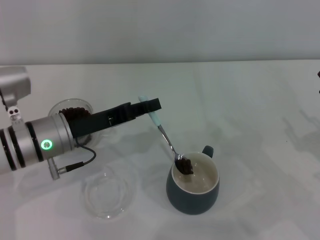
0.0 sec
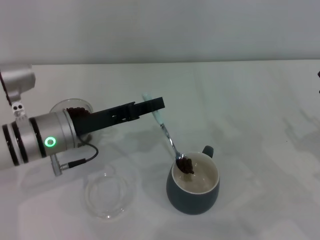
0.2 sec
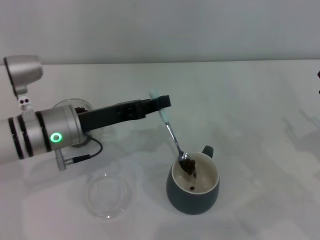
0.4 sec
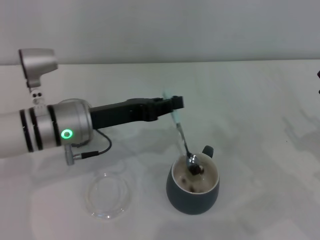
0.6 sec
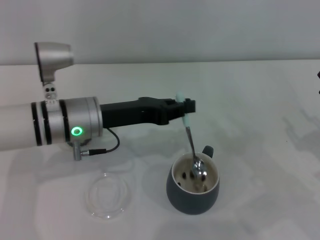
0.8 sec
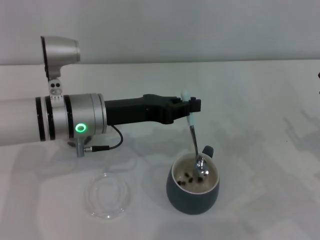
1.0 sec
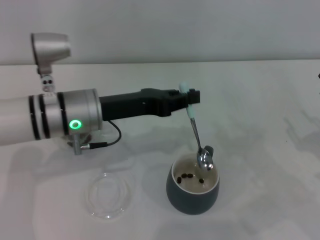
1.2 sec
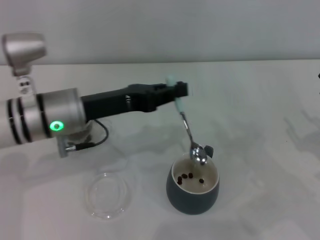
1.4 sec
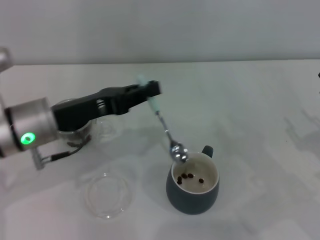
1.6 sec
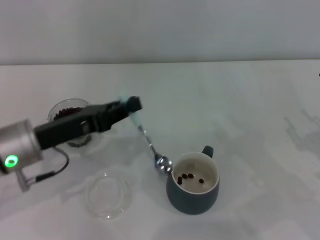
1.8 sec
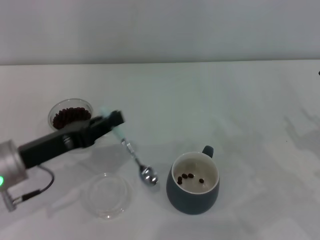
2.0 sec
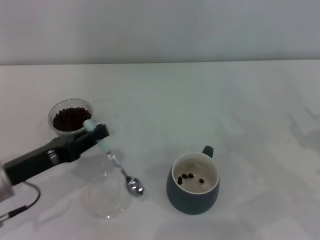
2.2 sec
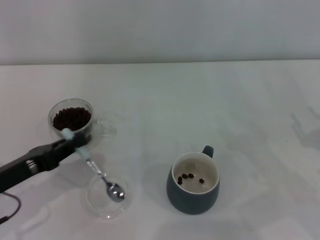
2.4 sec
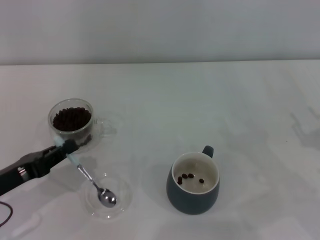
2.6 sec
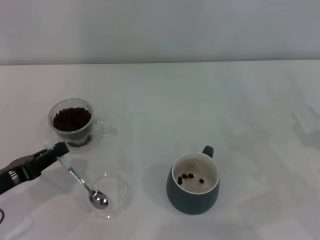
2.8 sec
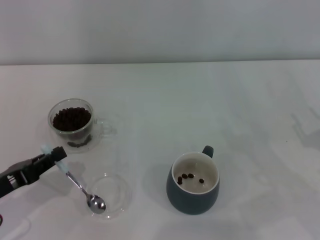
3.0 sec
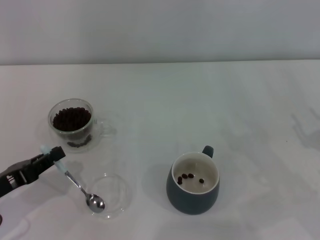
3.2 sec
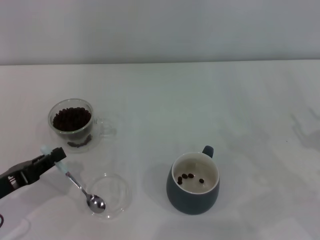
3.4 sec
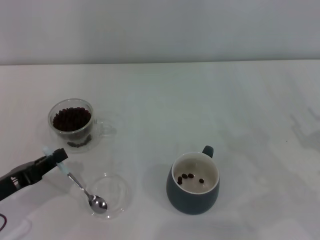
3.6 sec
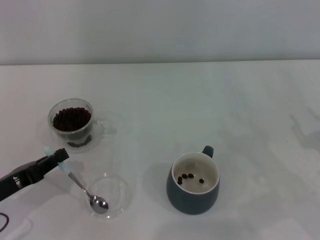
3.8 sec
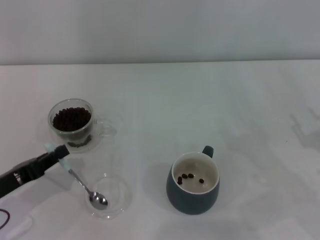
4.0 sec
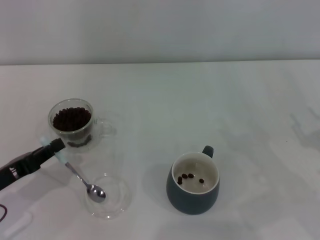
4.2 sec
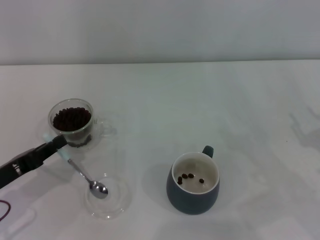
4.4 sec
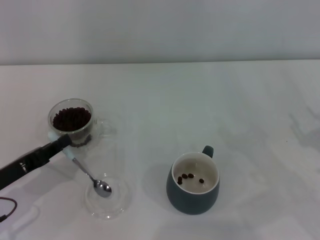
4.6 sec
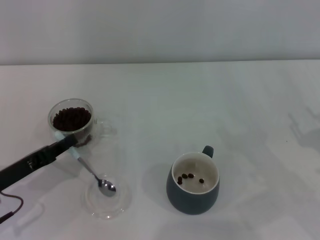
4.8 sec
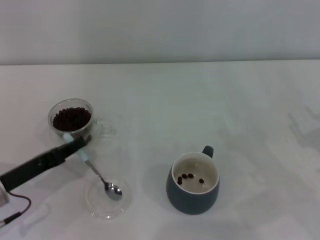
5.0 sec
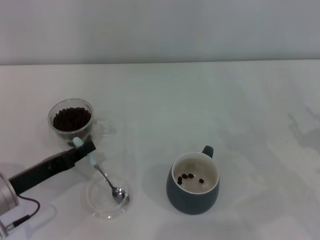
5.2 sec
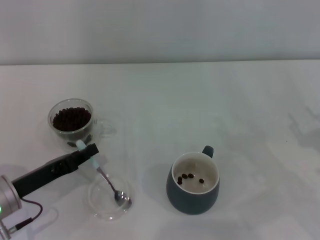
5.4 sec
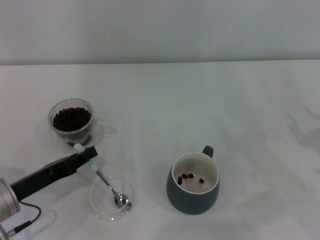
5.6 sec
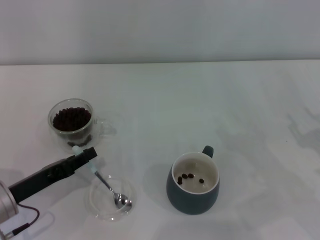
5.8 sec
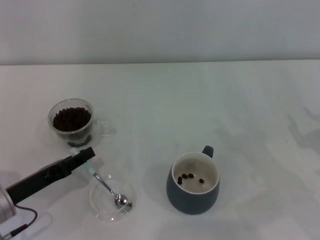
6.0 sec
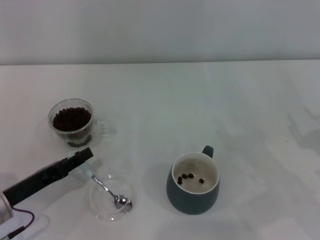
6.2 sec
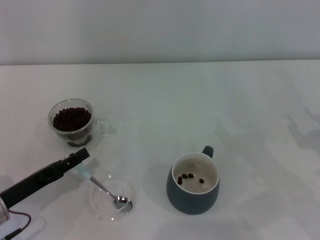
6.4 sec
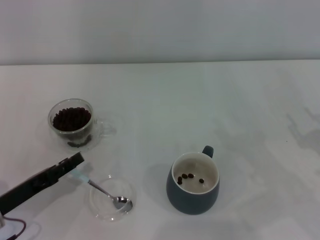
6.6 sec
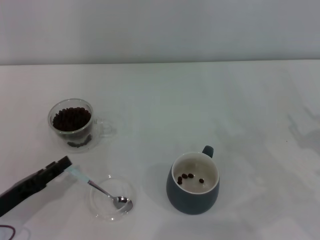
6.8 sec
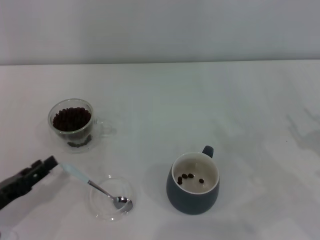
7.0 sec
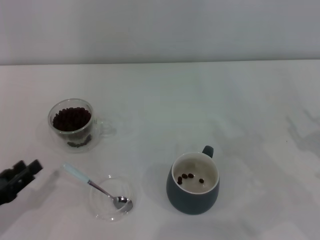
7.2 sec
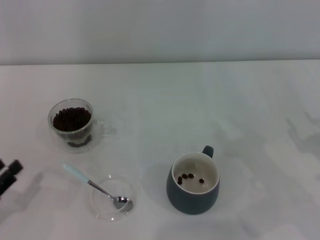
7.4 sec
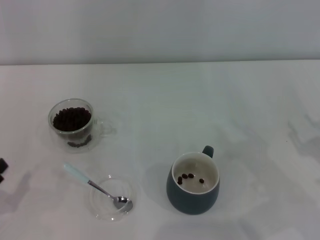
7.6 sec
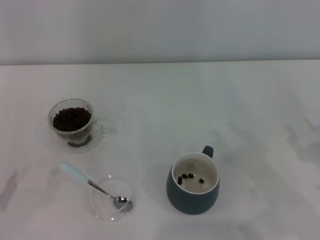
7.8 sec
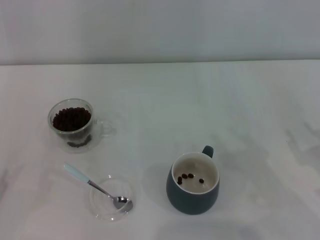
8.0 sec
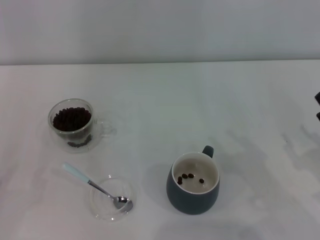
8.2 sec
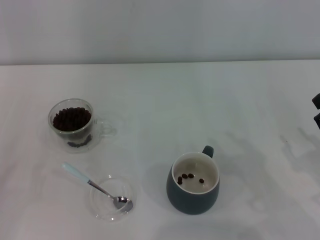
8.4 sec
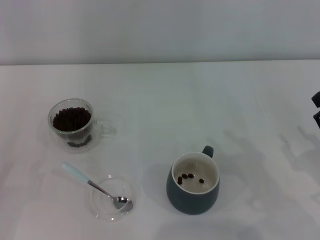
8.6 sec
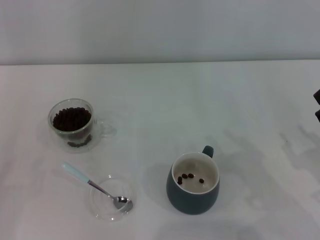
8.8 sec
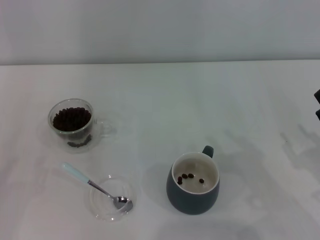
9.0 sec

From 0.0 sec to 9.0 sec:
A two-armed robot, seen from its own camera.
Task of the whole recording: Use a blue spoon to take out the coffee beans from the glass and pour them into the gray cup.
From 1.6 sec to 3.0 sec: The left gripper goes roughly 15 cm to the left, backward and downward.
From 3.0 sec to 6.0 sec: The grippers stay close to where they were, moving slightly.
From 6.0 sec to 7.6 sec: The left gripper goes about 10 cm to the left and backward, and opens.

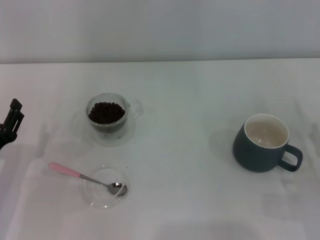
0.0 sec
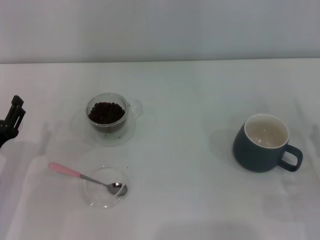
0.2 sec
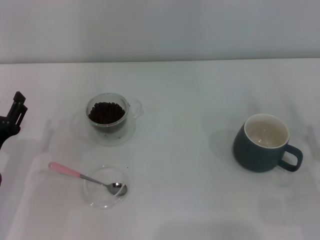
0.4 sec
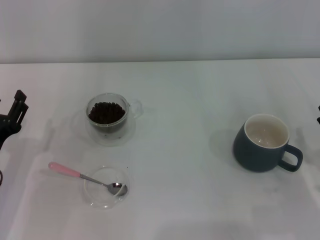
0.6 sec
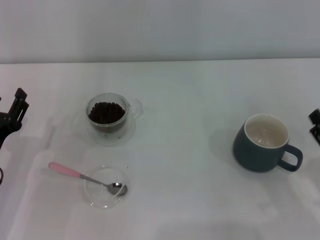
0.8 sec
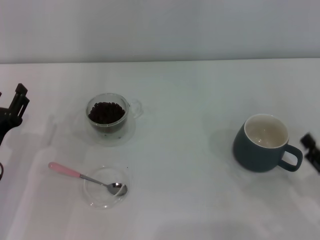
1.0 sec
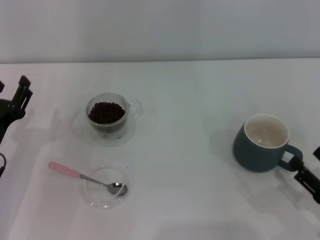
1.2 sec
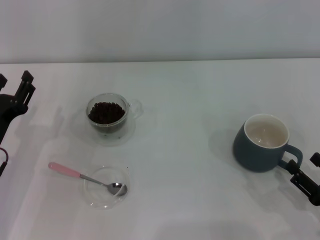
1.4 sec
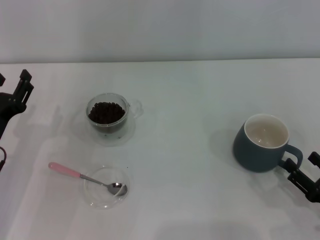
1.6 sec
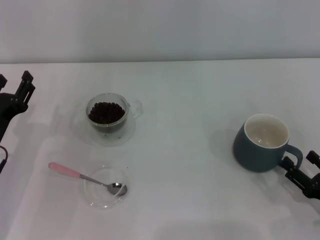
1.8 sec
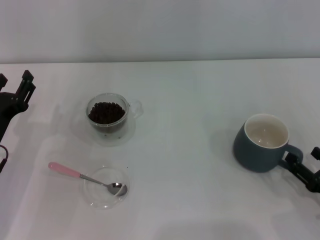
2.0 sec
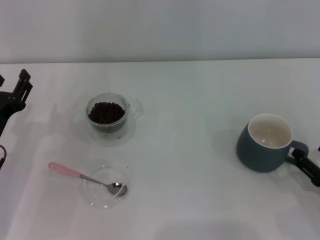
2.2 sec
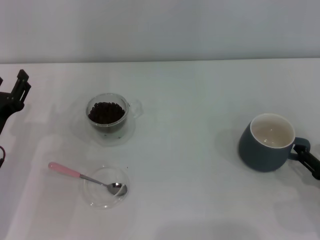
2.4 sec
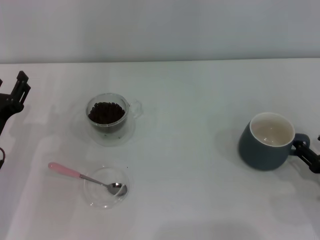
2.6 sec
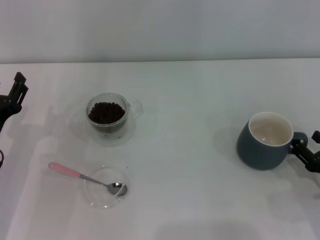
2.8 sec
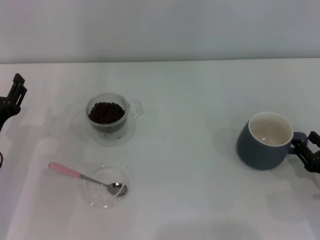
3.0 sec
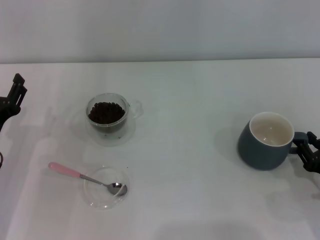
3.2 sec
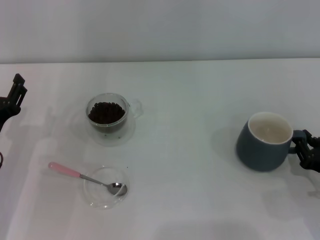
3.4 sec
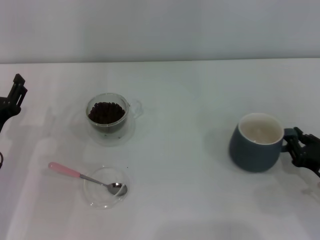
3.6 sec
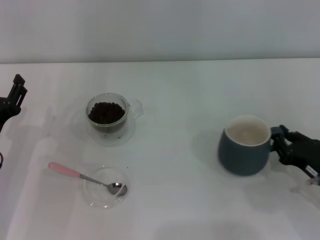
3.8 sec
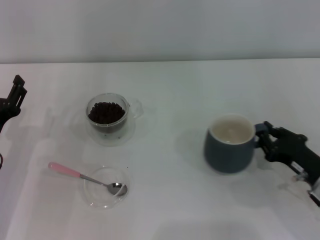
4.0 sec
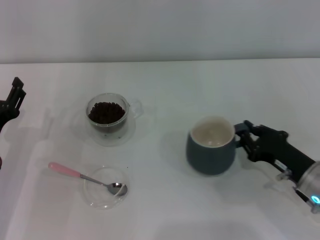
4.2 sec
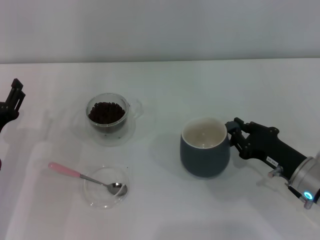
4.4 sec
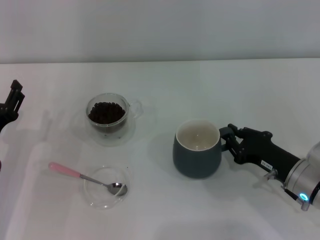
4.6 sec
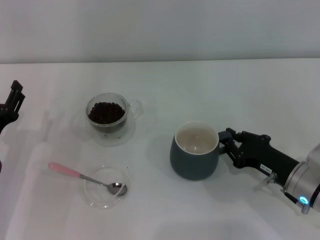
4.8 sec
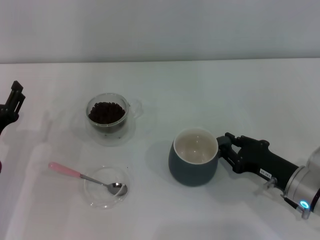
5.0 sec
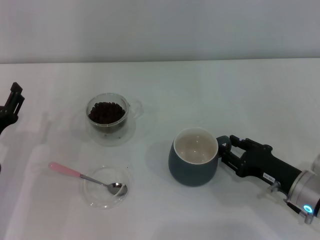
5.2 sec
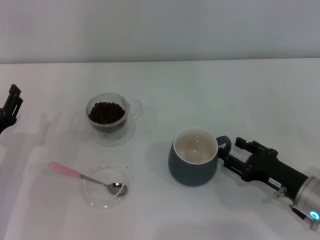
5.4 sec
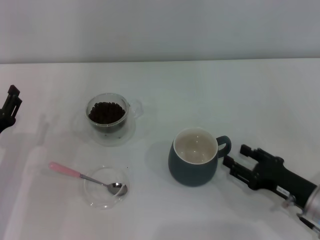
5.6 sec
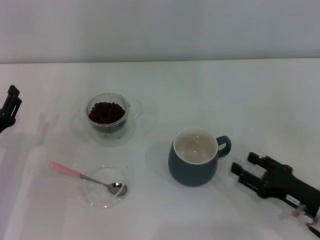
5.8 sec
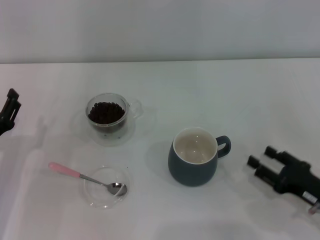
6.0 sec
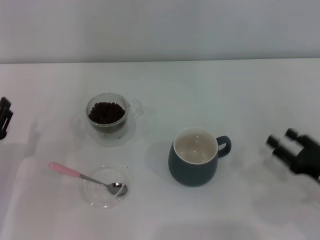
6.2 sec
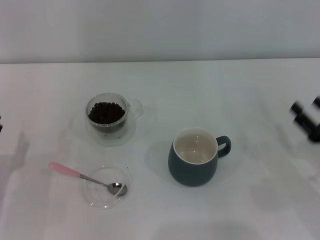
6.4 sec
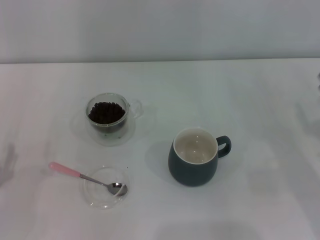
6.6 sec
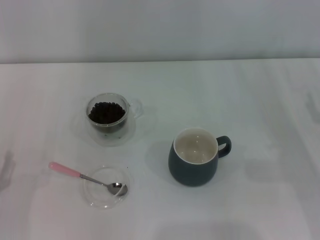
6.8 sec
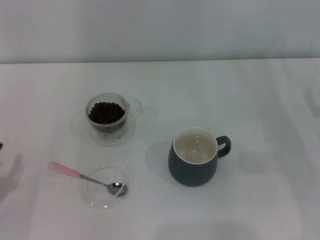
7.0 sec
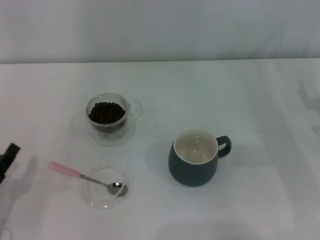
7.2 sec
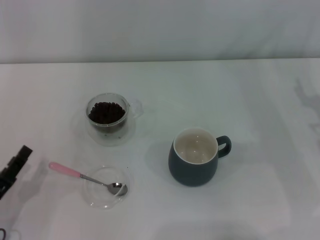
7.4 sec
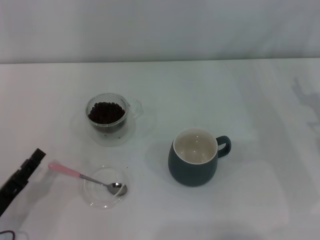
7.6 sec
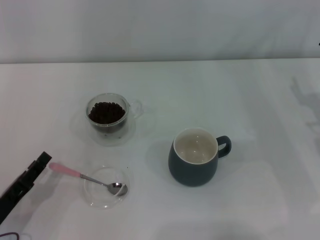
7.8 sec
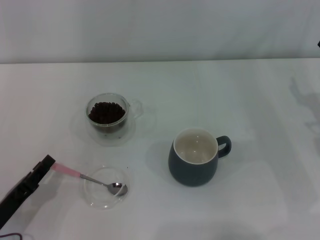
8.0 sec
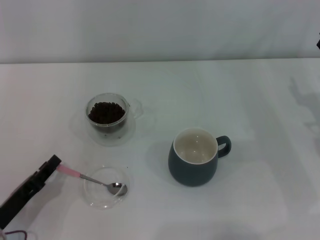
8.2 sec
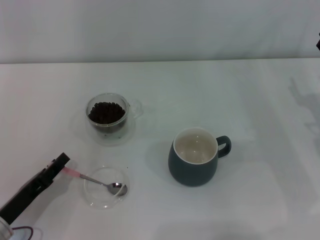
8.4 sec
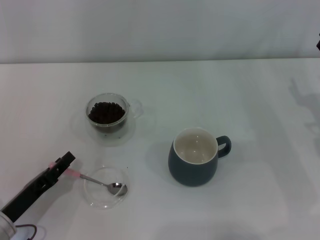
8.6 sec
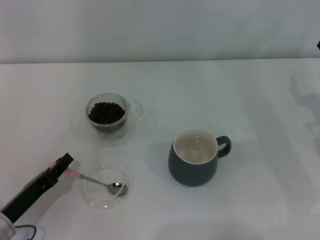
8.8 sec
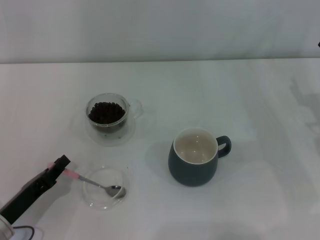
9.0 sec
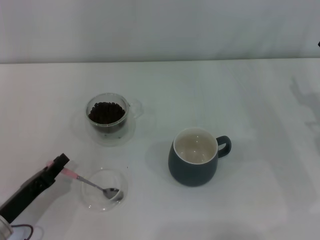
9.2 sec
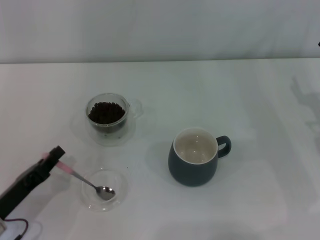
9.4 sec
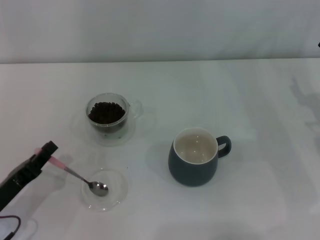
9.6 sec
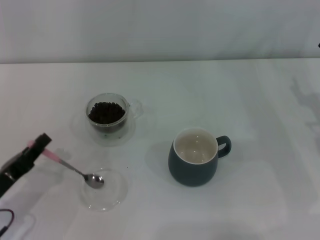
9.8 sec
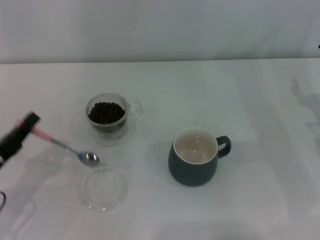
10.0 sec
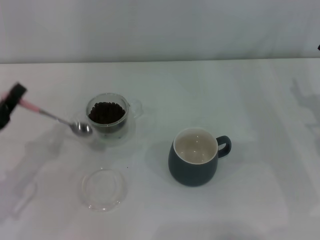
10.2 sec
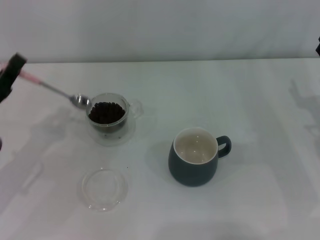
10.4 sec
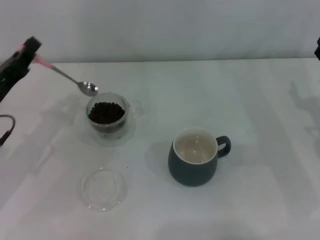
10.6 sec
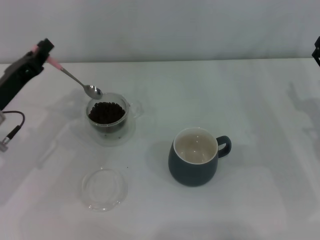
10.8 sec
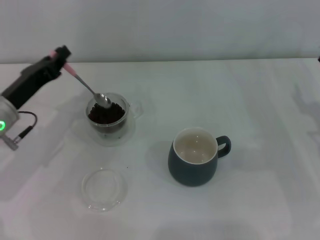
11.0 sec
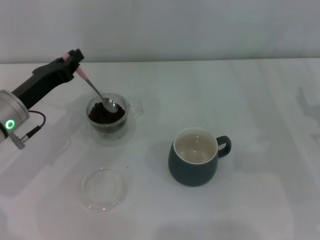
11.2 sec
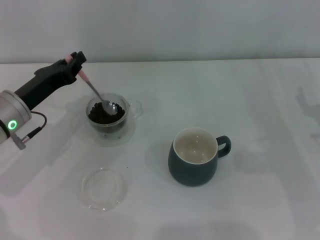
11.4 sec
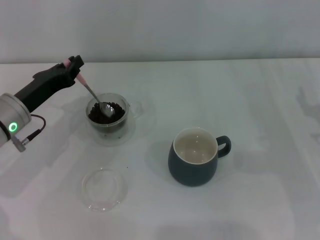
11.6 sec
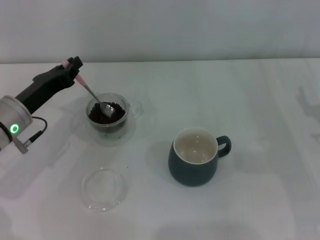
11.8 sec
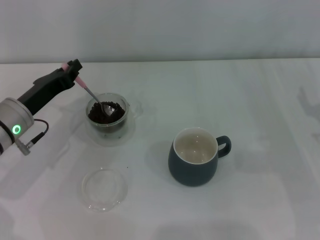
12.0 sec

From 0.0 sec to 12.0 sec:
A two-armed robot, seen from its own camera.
Task of the whole recording: Use a pink spoon to take out the coffee beans from the glass and pour them into the gray cup.
Step, from 0.0 sec to 5.6 sec: Move the cup to the center of view with the left gripper.
Step, from 5.8 sec to 9.8 sec: Pick up the spoon with the right gripper.
From 0.0 sec to 1.6 sec: The right gripper goes approximately 5 cm backward.
From 1.6 sec to 3.0 sec: The right gripper travels forward by some 5 cm.
From 3.0 sec to 4.4 sec: The right gripper travels to the left and forward by about 10 cm, and closes up.
From 4.4 sec to 6.0 sec: The right gripper heads backward, covering approximately 5 cm, and opens.
From 6.0 sec to 7.6 sec: The left gripper moves backward, some 10 cm, while the right gripper heads forward and upward, covering approximately 15 cm.
From 7.6 sec to 9.0 sec: The left gripper closes up.
From 9.0 sec to 10.4 sec: The left gripper travels upward and forward by some 10 cm, and closes up.
From 10.4 sec to 12.0 sec: The left gripper shifts some 10 cm forward and to the right.

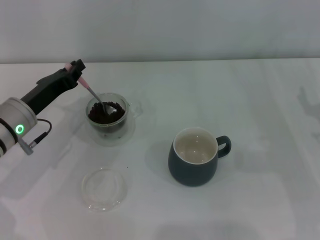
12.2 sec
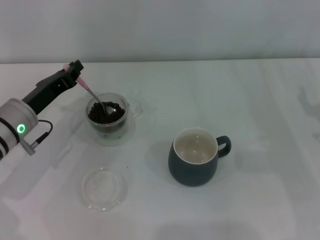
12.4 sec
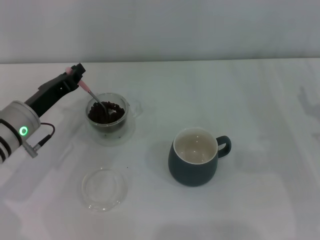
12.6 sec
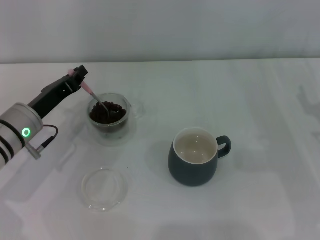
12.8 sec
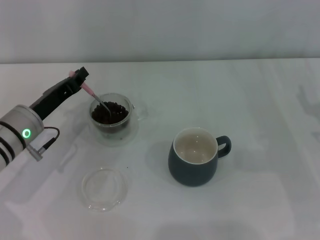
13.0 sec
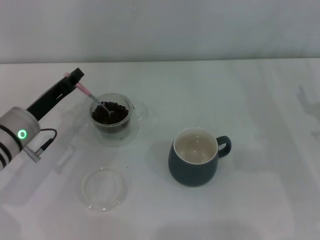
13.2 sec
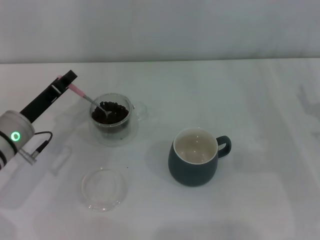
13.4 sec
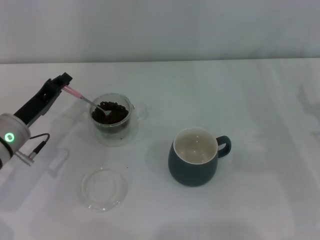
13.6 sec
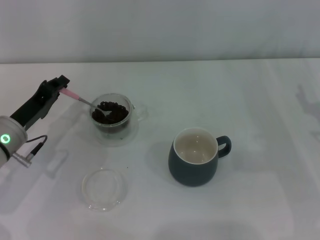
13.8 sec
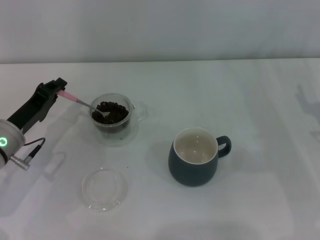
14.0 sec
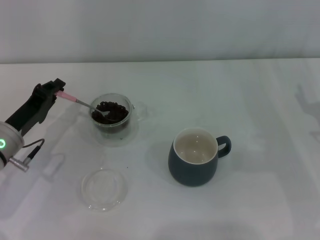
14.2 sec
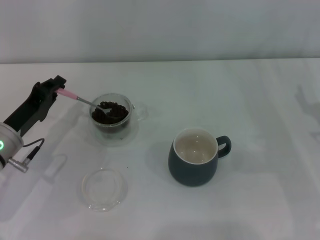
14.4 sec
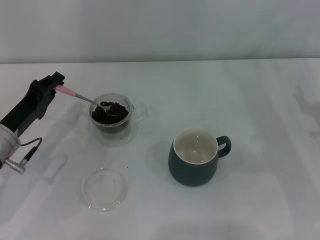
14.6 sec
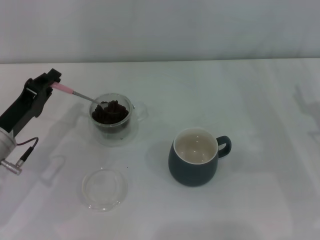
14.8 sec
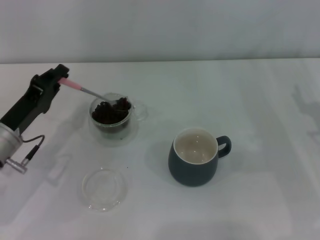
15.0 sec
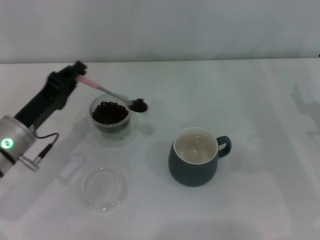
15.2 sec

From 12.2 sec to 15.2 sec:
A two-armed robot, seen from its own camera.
Task of the whole recording: Use a pink spoon to take out the coffee beans from the glass and pour them into the gray cup.
From 13.8 sec to 15.2 sec: The grippers make only small movements.
